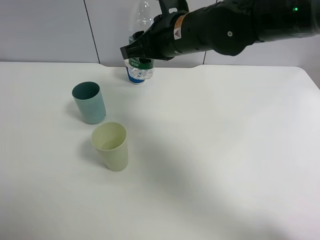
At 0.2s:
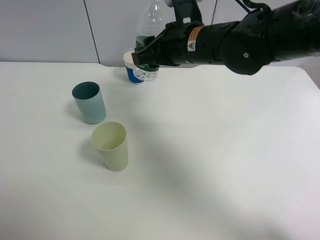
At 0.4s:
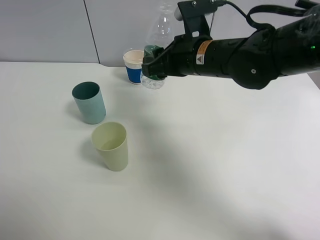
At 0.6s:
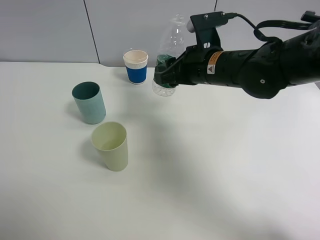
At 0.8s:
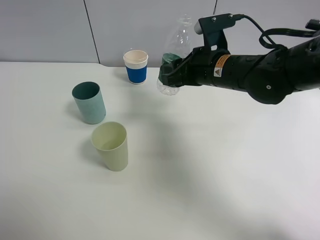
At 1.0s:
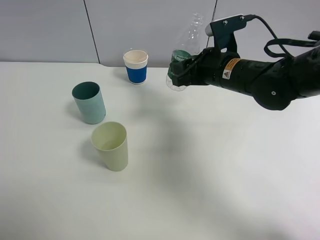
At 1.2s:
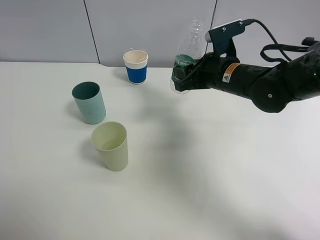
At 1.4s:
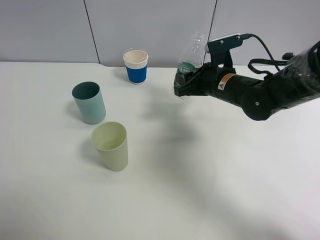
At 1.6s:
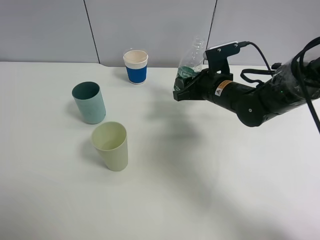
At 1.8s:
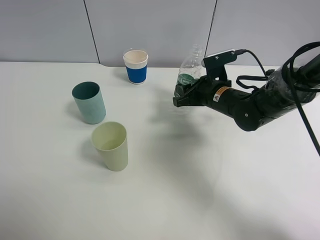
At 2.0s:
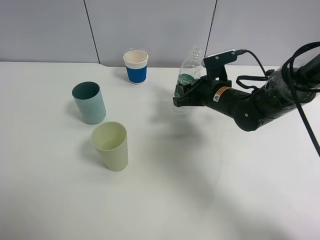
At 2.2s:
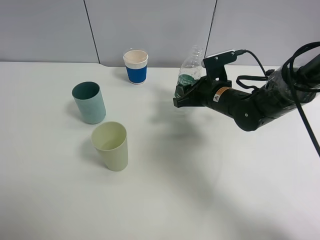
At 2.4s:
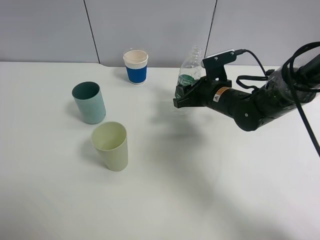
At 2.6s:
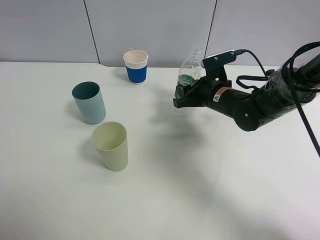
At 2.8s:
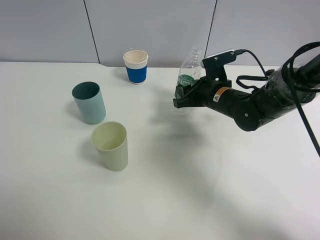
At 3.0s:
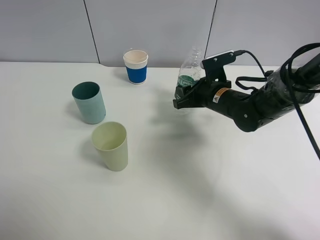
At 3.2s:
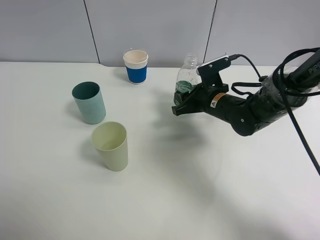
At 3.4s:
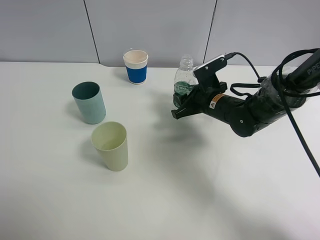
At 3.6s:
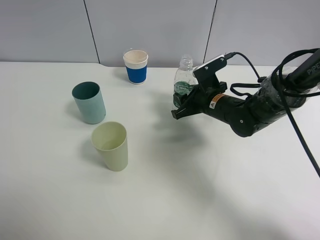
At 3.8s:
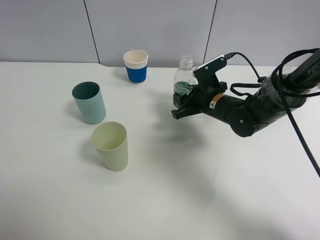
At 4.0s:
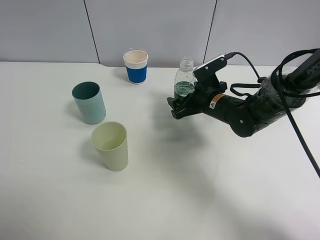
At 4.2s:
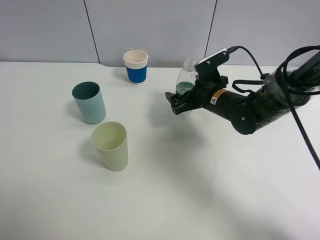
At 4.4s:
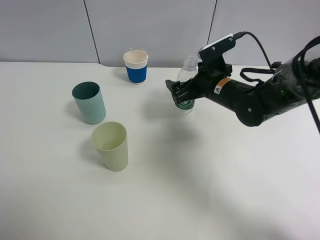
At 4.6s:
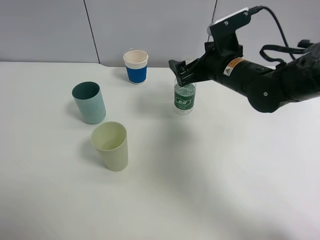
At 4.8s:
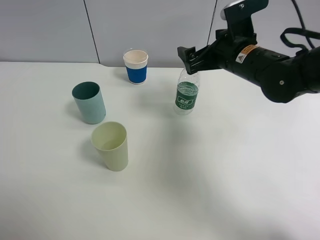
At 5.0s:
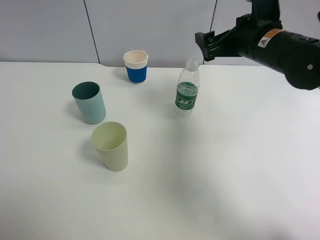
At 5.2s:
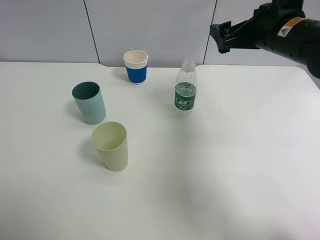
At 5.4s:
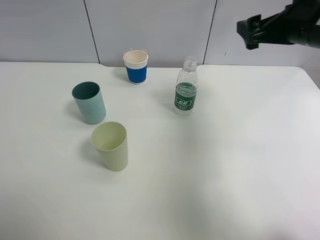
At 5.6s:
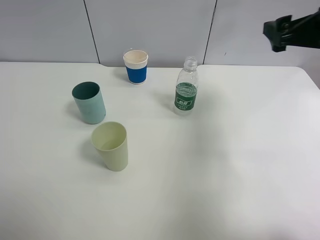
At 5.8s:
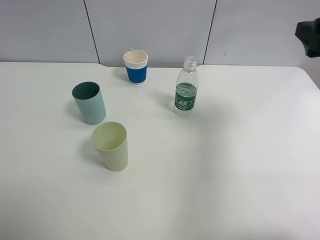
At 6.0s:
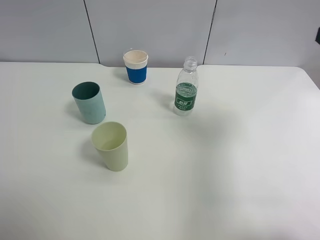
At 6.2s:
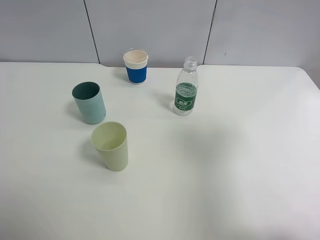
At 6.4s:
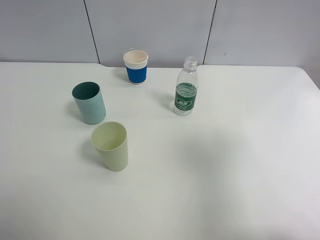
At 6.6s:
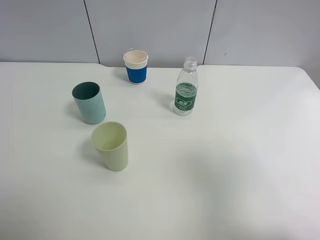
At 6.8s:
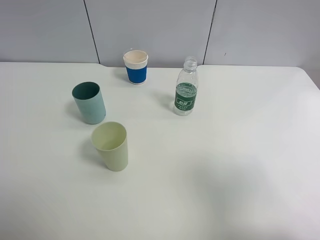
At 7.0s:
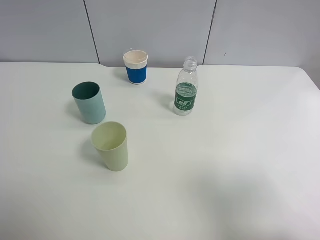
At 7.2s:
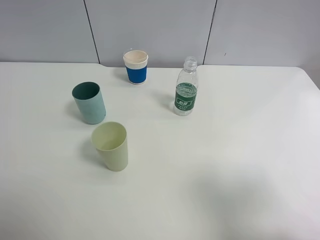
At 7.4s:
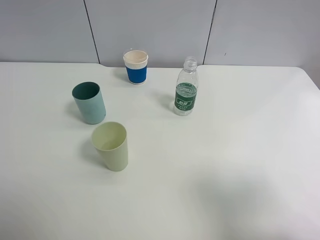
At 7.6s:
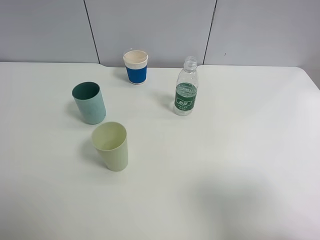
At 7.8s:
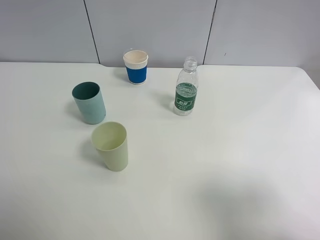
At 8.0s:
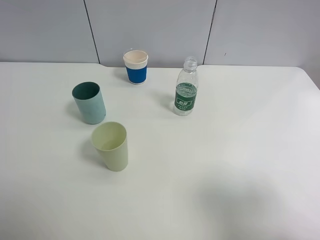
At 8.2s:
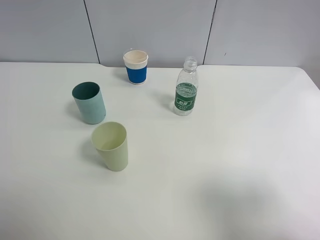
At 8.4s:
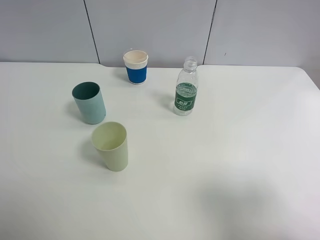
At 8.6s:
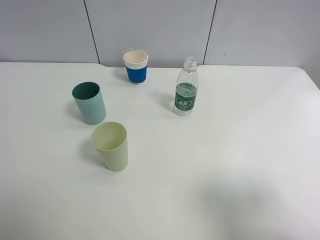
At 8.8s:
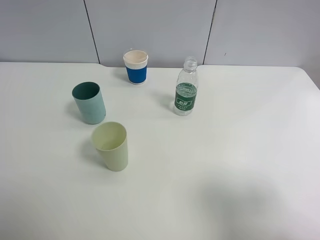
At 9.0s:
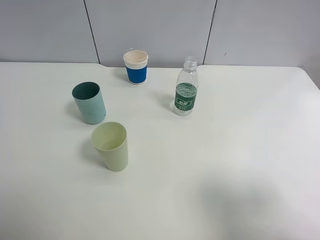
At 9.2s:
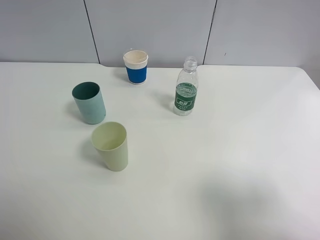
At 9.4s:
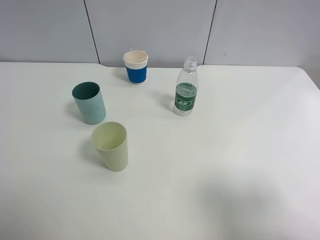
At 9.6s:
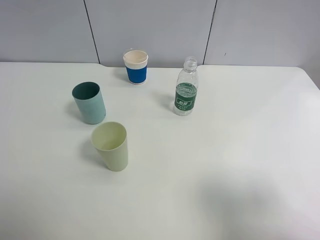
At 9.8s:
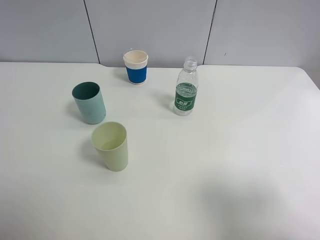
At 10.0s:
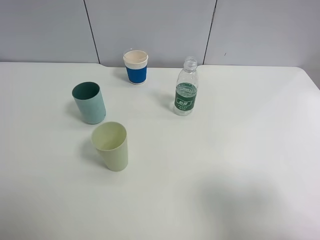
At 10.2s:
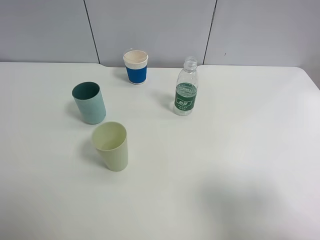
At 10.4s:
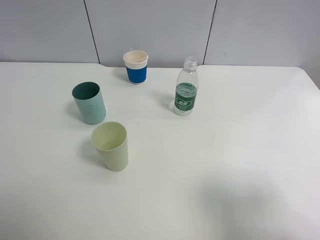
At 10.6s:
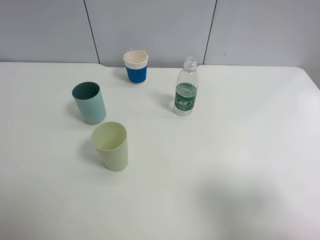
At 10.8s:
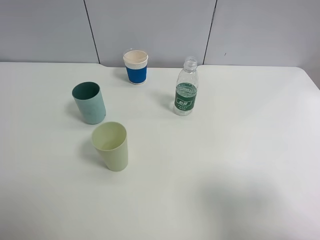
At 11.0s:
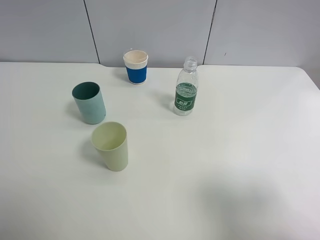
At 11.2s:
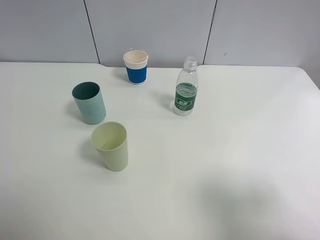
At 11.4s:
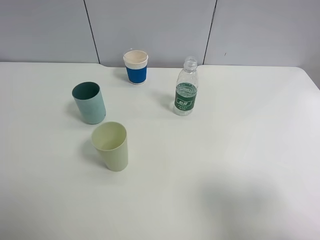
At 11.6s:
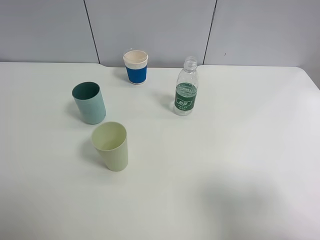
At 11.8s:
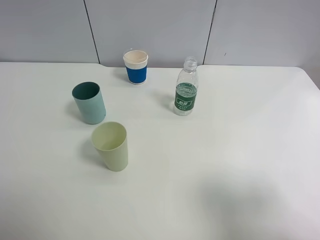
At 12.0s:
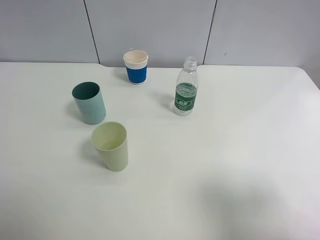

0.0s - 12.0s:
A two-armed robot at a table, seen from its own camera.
Task of the whole recording: use a clamp to hold the bottle of the drink, pour the beverage into a random cup, then clamp the cup containing the drink and pour the drink into another random cup.
Step, 0.0s - 4.8s: Place the water bottle on the table with right gripper.
0.0s - 1.6s: The right gripper travels downward and to the right by roughly 15 cm.
1.6s - 3.0s: There are only small adjustments of the grippers.
3.0s - 4.4s: The right gripper opens up.
4.4s - 6.0s: The right gripper moves upward, backward and to the right, approximately 30 cm.
6.0s - 7.6s: The right gripper goes approximately 15 cm backward.
7.6s - 12.0s: Both grippers stay about where they are.

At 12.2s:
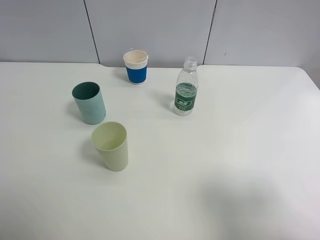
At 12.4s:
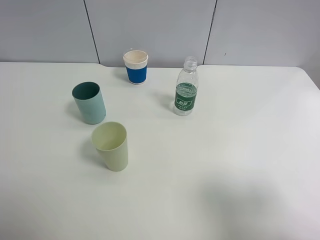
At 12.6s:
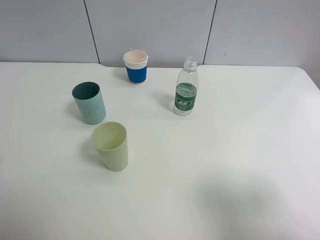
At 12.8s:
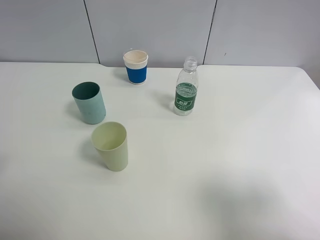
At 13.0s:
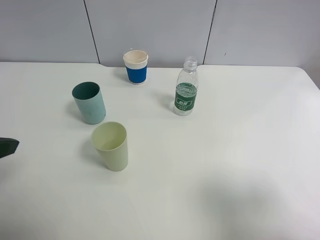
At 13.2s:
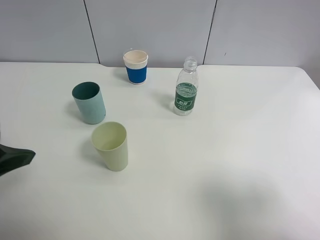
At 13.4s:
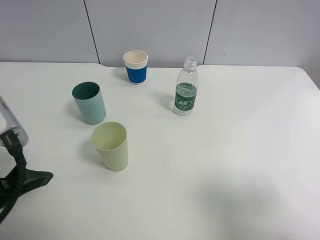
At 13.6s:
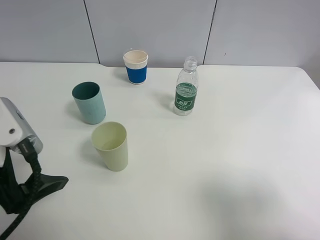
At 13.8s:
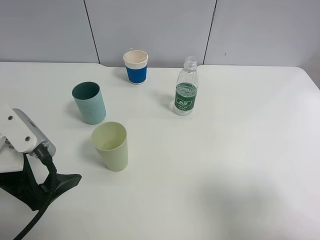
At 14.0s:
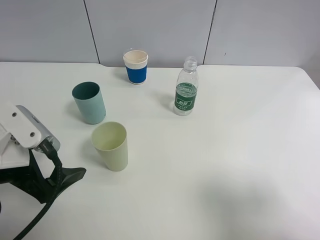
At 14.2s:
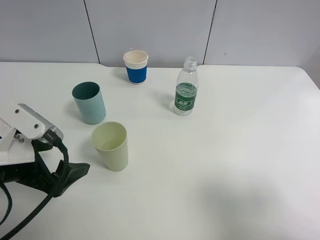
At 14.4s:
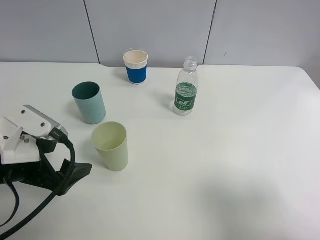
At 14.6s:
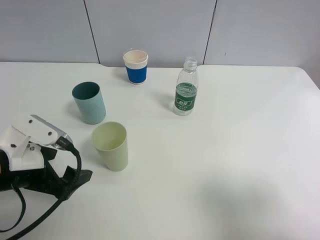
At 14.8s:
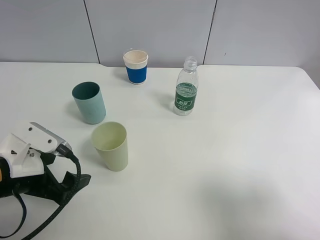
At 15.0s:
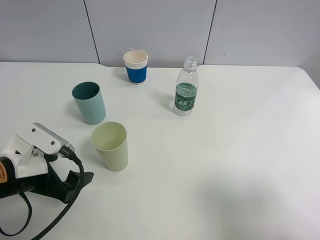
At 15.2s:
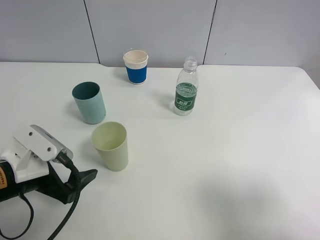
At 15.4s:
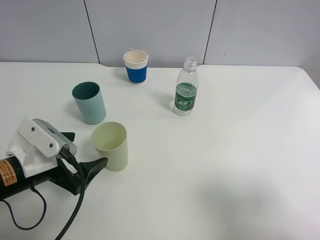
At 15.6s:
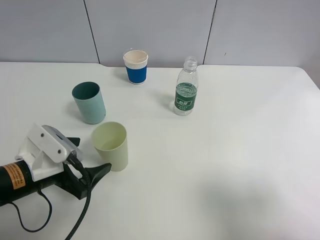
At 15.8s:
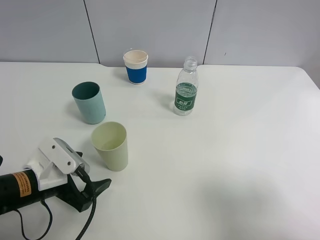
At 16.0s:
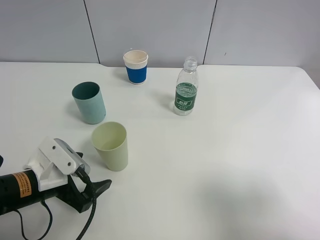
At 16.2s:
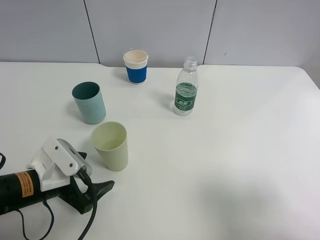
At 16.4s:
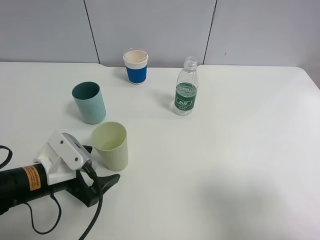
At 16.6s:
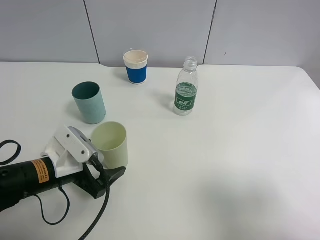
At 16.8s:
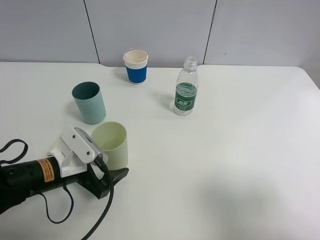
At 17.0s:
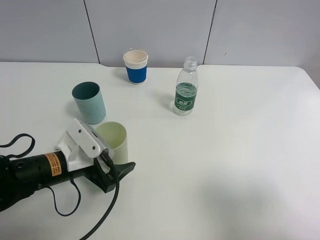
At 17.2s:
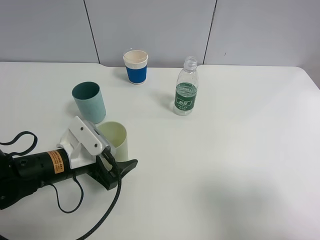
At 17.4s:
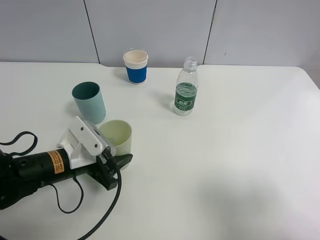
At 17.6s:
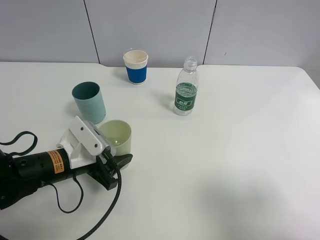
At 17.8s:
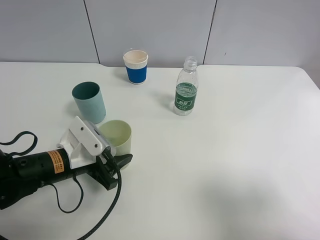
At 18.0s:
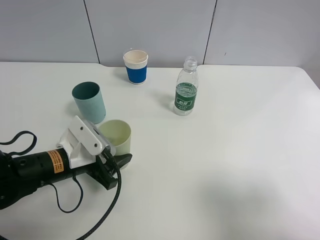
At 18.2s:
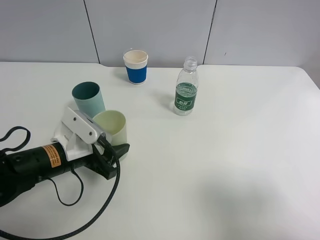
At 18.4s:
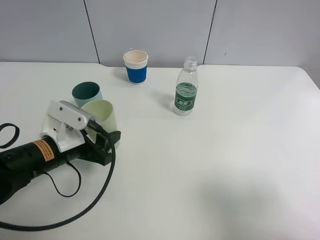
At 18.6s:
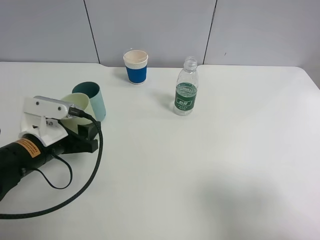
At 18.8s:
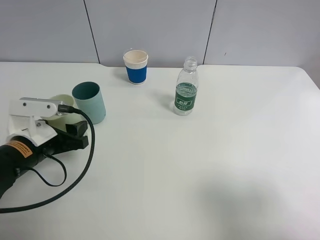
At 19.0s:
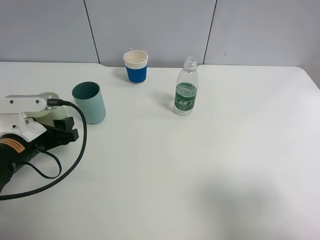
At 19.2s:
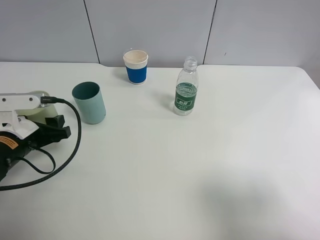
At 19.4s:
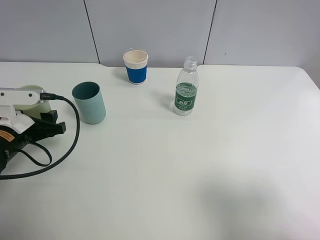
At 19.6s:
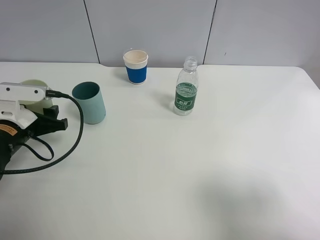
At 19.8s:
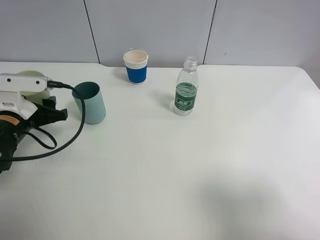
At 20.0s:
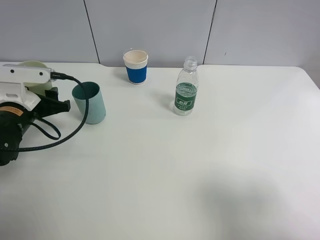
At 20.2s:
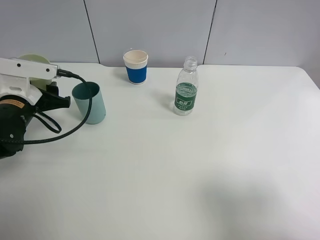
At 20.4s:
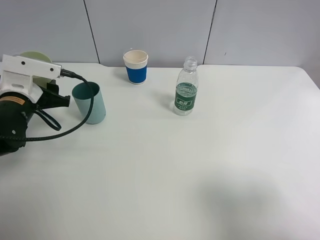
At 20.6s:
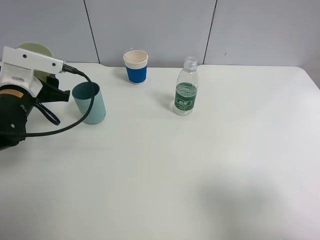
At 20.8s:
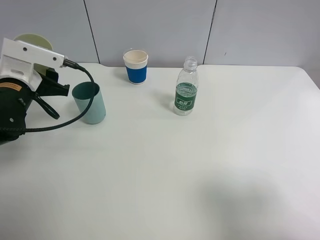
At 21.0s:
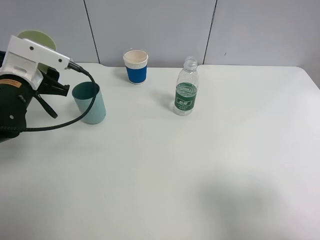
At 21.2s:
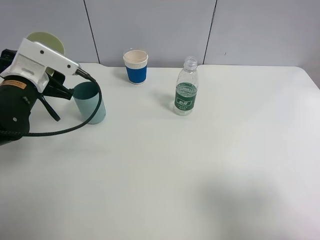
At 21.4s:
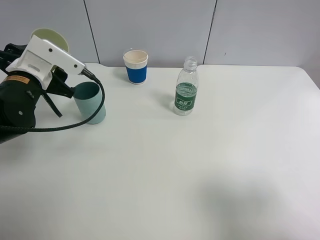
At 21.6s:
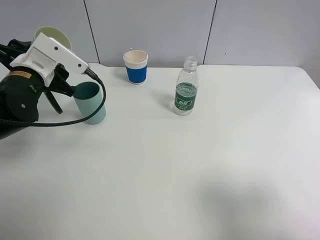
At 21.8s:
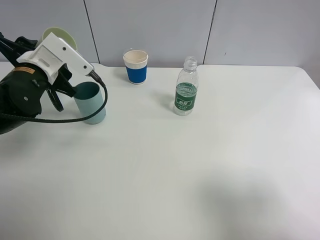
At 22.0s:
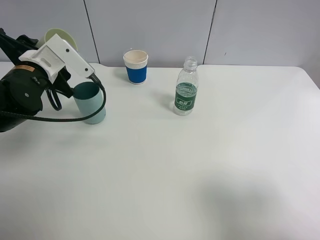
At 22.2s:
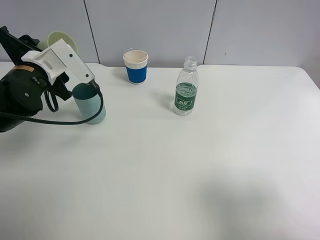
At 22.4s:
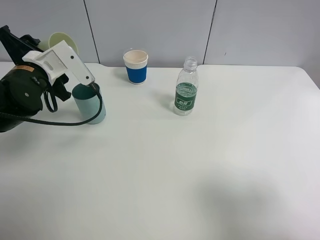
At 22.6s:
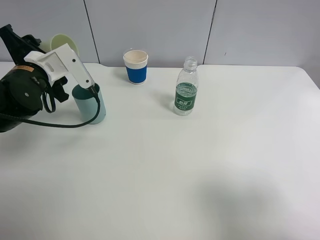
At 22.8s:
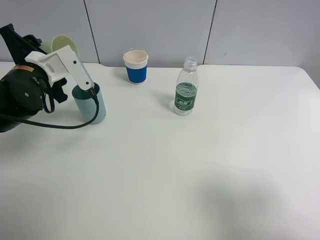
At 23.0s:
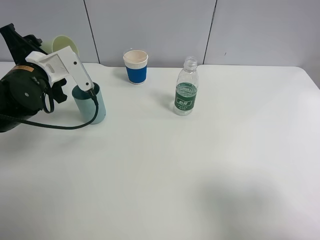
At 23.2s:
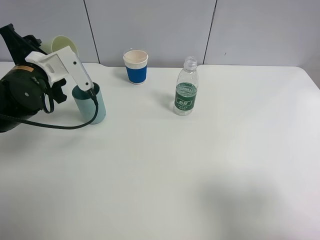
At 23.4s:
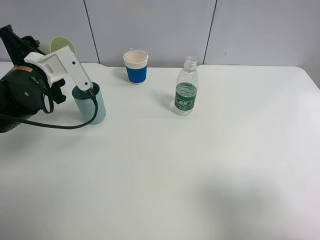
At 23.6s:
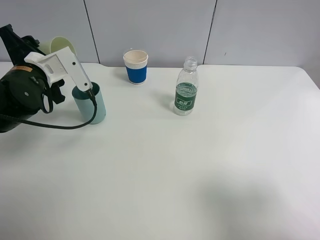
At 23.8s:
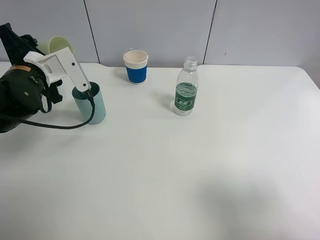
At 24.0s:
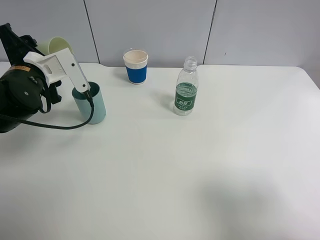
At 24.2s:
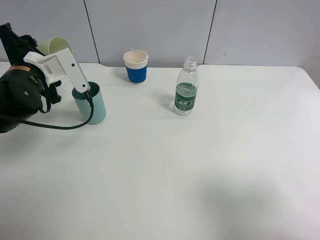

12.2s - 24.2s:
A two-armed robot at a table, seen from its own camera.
Task of the whole recording: use a clamp to hold the bottle of the drink, pour the beverage into a random cup, then clamp the cup containing the drink and pour the drink into another random cup.
Step, 12.2s - 18.2s: Pick up the green plastic cup with left gripper.
12.2s - 13.8s: The left gripper travels downward, forward and to the right by about 15 cm.
13.8s - 15.2s: The left gripper is displaced downward by some 5 cm.
15.2s - 16.6s: The left gripper moves approximately 5 cm.
16.6s - 18.2s: The left gripper closes.
18.2s - 19.8s: The left gripper goes about 10 cm to the left.
19.8s - 21.2s: The left gripper shifts by about 5 cm.
22.6s - 24.2s: The grippers move only a little.
